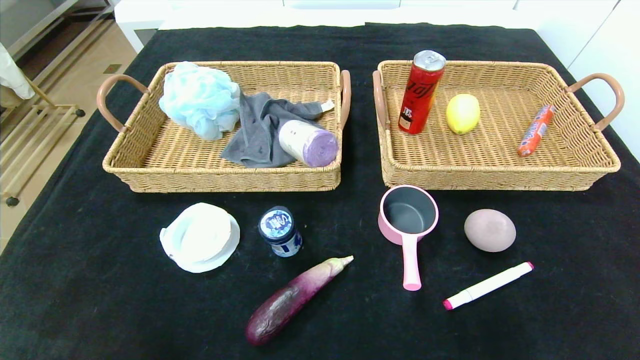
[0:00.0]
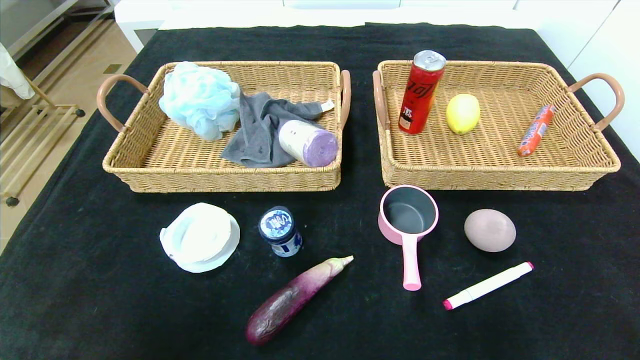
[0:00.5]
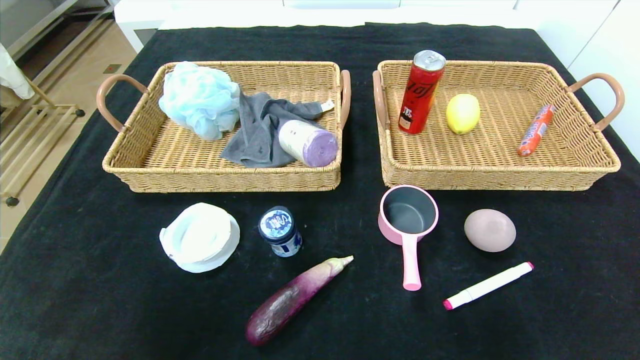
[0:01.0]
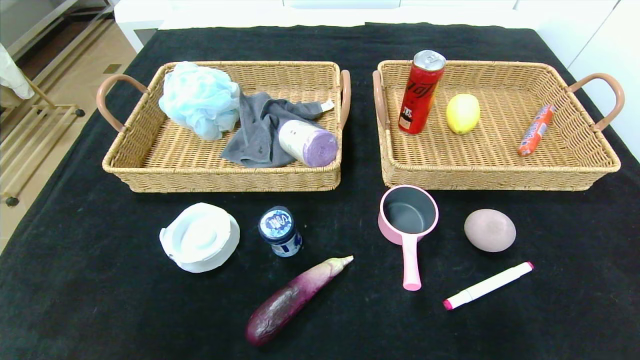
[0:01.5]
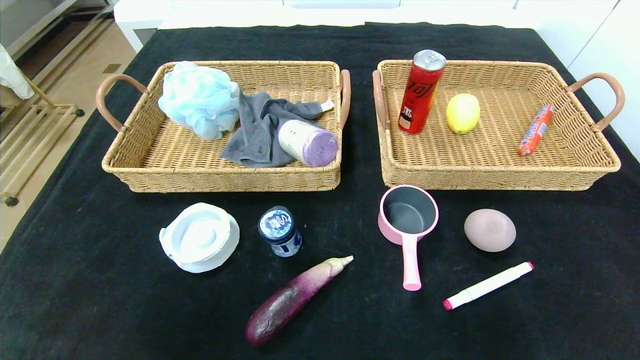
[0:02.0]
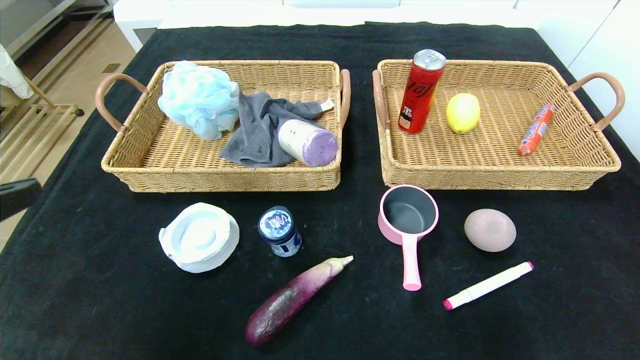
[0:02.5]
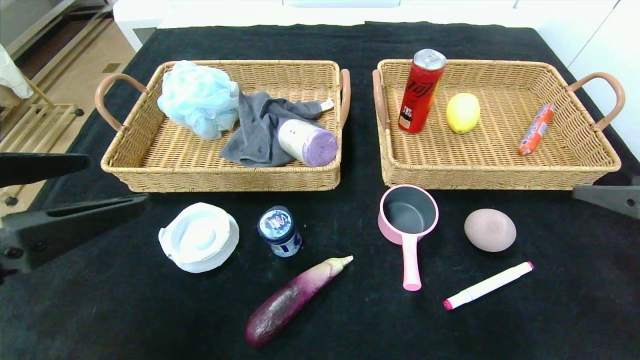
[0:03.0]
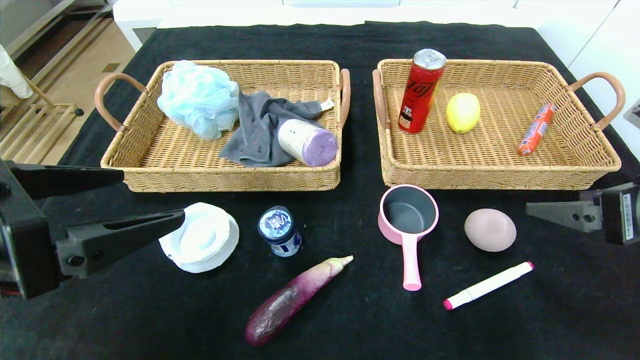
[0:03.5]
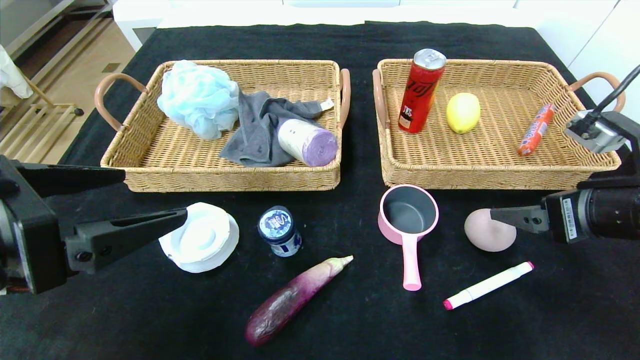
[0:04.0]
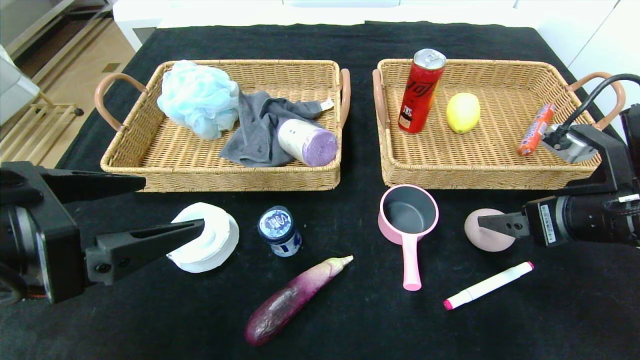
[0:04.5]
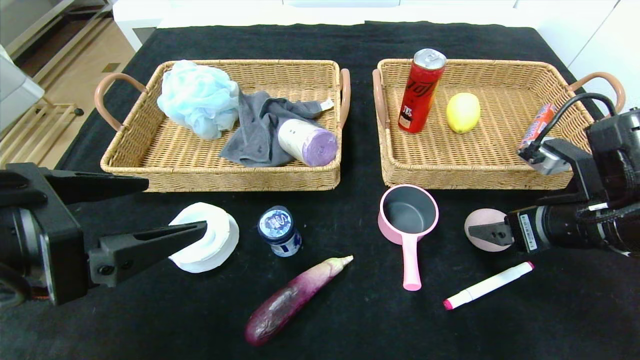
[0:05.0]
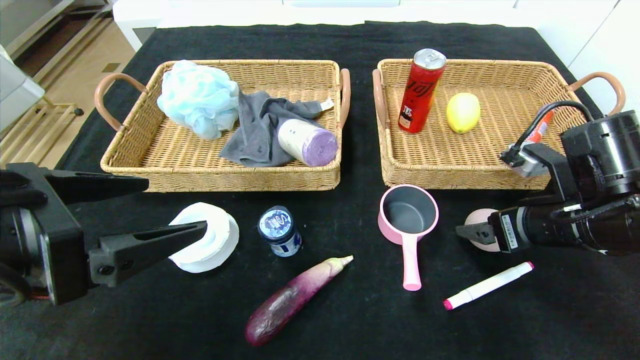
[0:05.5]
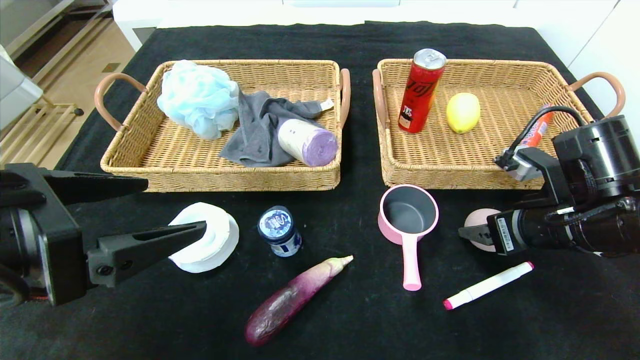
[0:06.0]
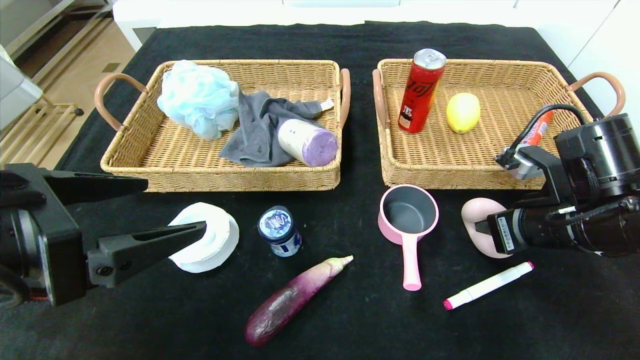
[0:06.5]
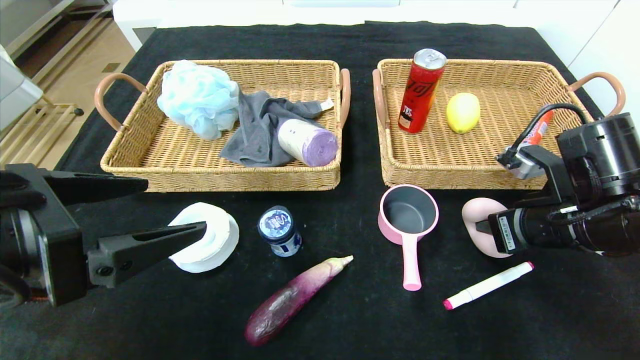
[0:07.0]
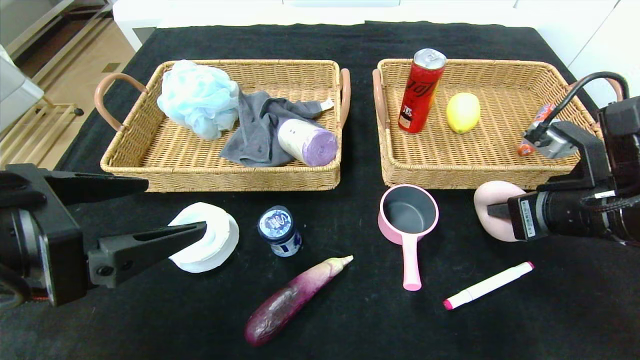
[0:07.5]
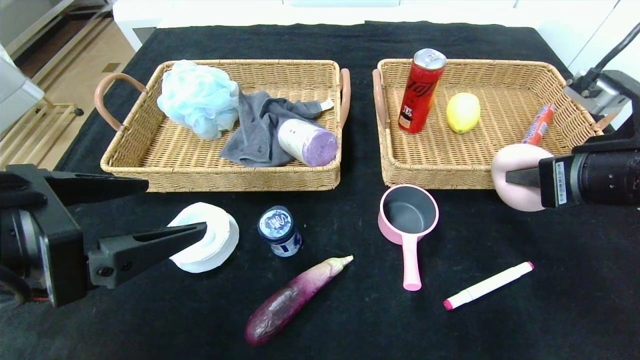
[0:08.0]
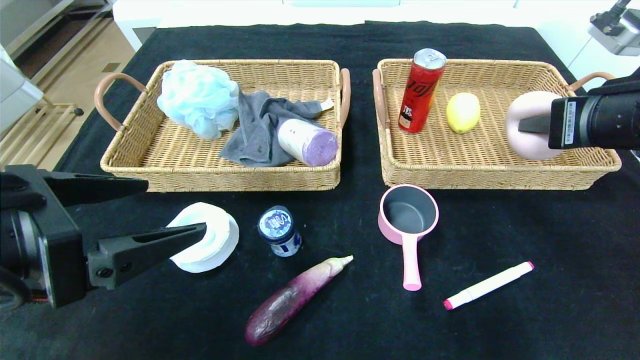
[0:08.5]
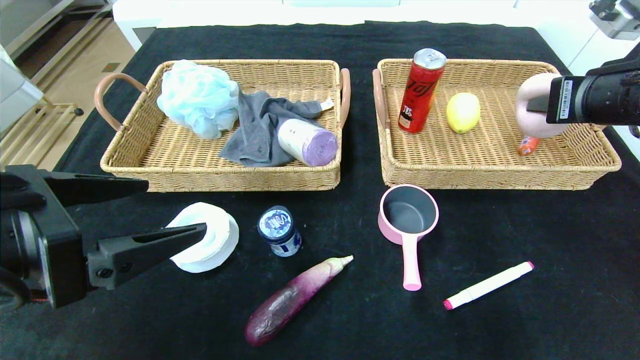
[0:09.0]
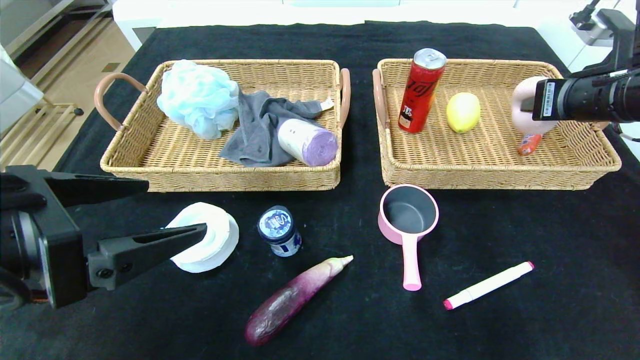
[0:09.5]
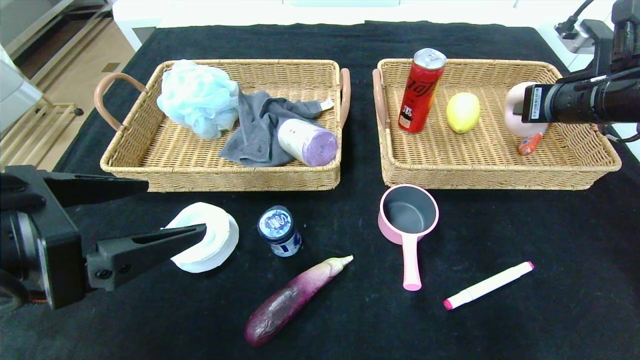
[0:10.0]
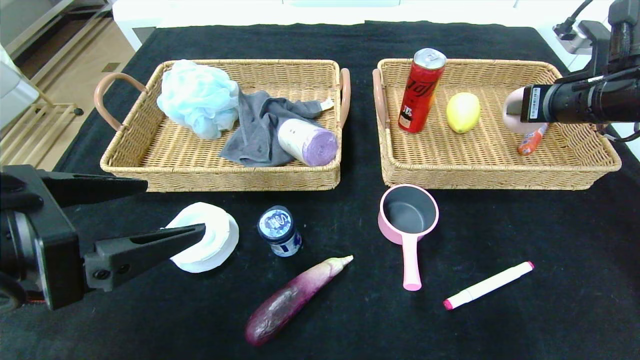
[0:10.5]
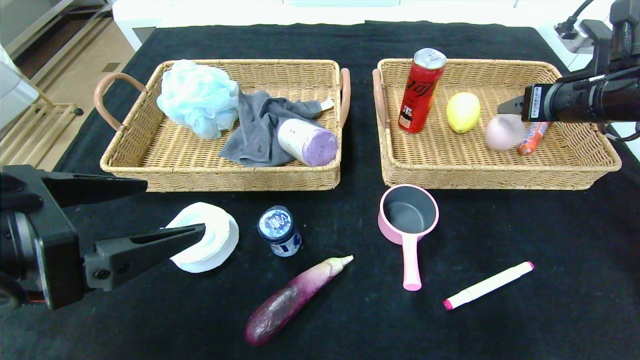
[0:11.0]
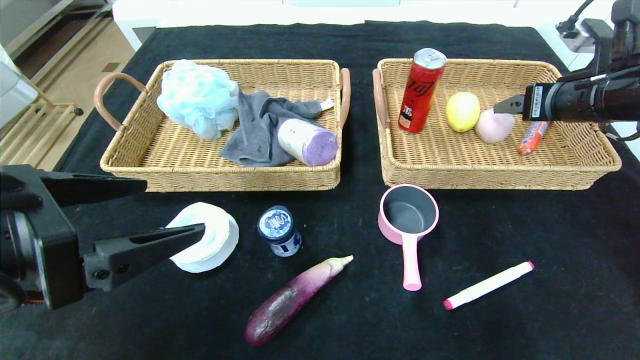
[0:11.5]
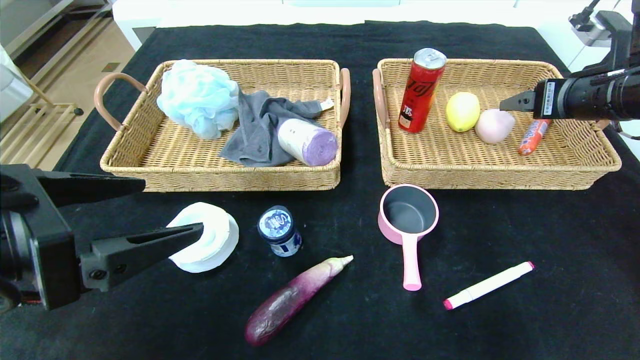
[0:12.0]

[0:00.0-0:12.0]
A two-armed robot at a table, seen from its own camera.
Step, 0:00.0 to 0:04.0: Grasp the peach and put it in the right basket.
0:00.0 to 0:02.0: The two grippers go roughly 25 cm upward.
0:02.0 to 0:04.0: The right gripper moves forward, about 20 cm, while the left gripper heads forward and to the right, covering approximately 15 cm.
0:04.0 to 0:06.0: The right gripper ends up approximately 5 cm from where it was.
0:06.0 to 0:08.0: The right gripper moves upward, roughly 10 cm, and closes up.
0:08.0 to 0:10.0: The right gripper goes approximately 10 cm forward.
0:10.0 to 0:12.0: The right gripper opens.

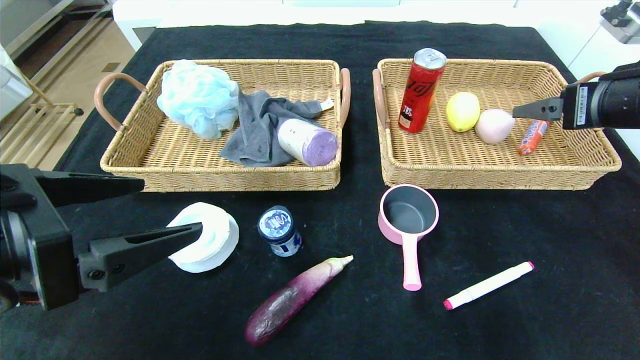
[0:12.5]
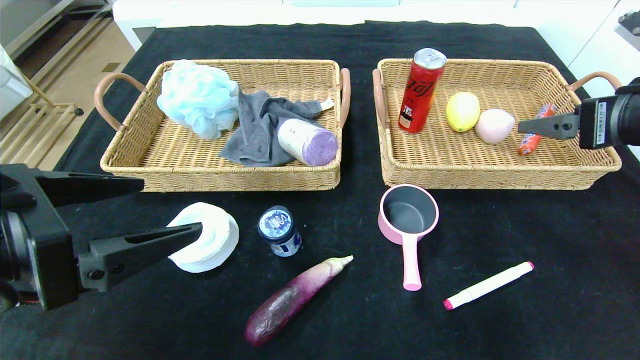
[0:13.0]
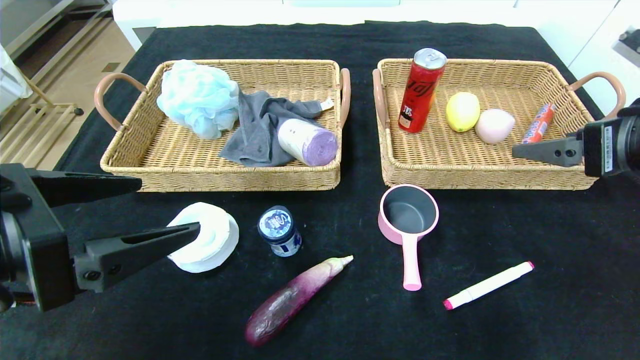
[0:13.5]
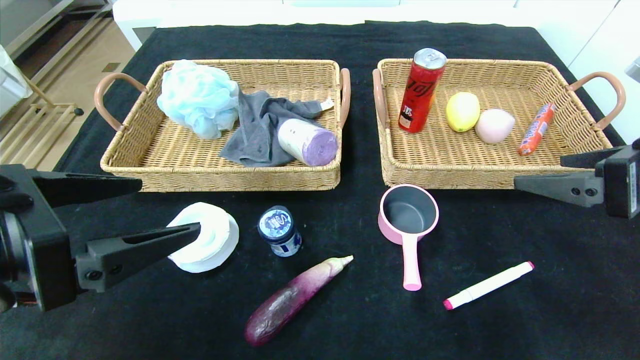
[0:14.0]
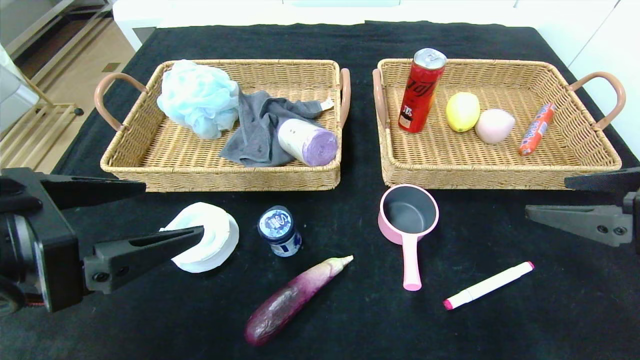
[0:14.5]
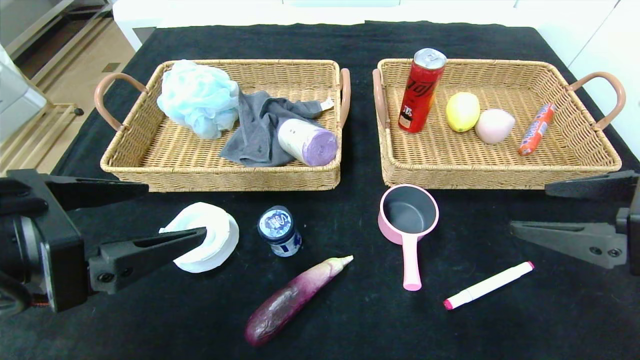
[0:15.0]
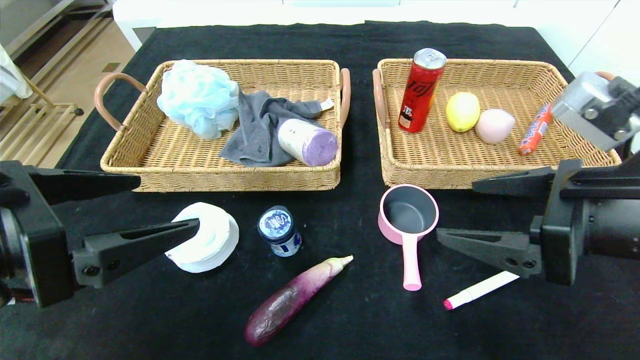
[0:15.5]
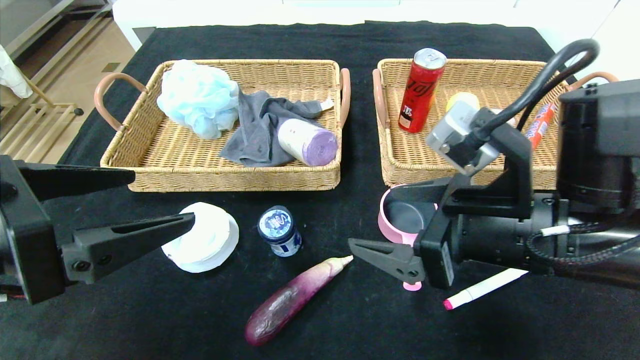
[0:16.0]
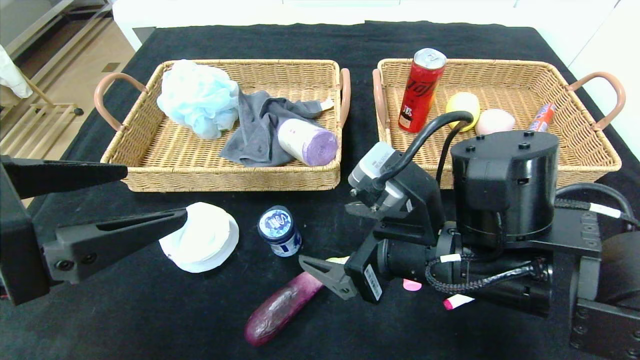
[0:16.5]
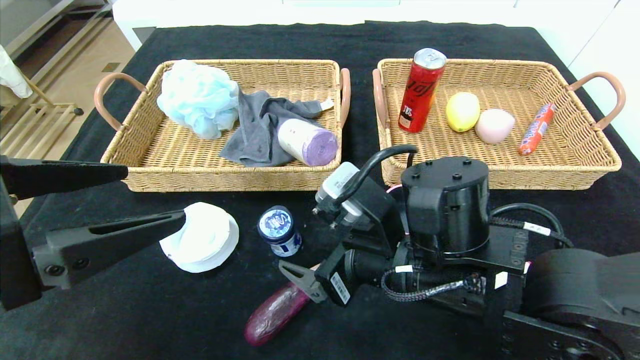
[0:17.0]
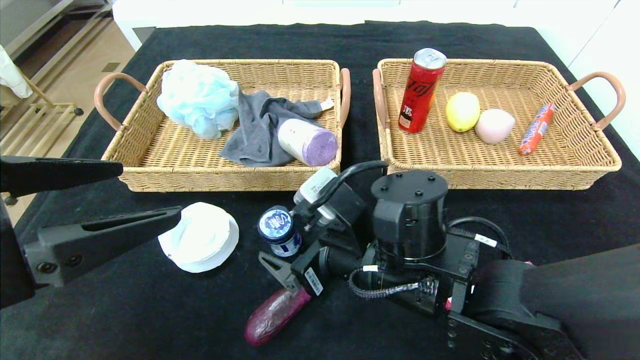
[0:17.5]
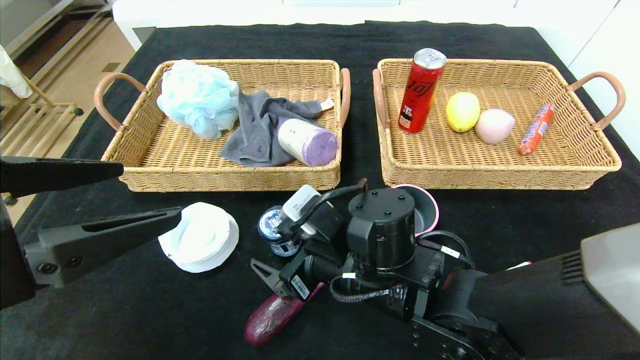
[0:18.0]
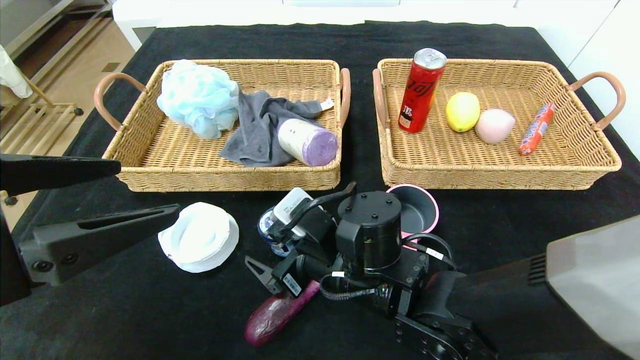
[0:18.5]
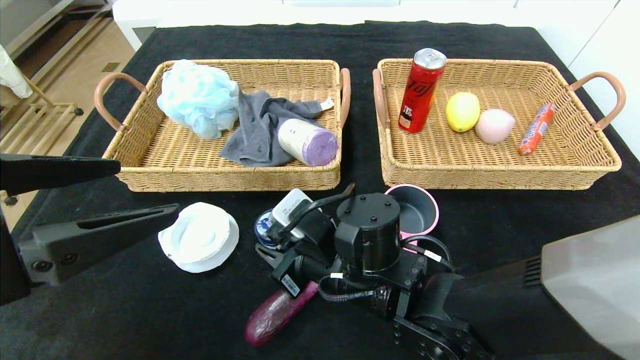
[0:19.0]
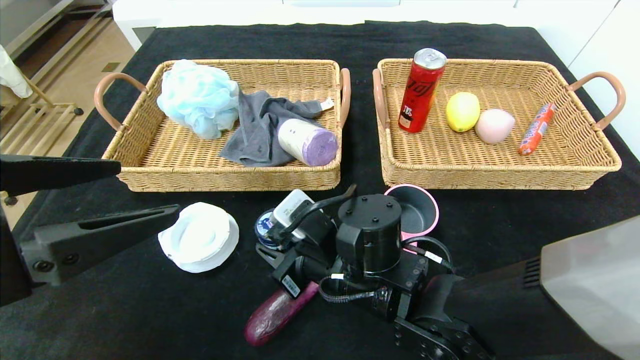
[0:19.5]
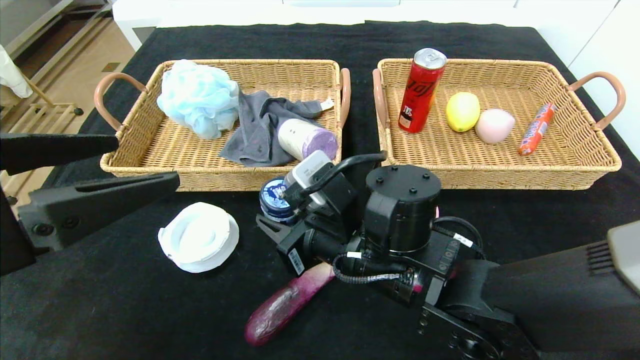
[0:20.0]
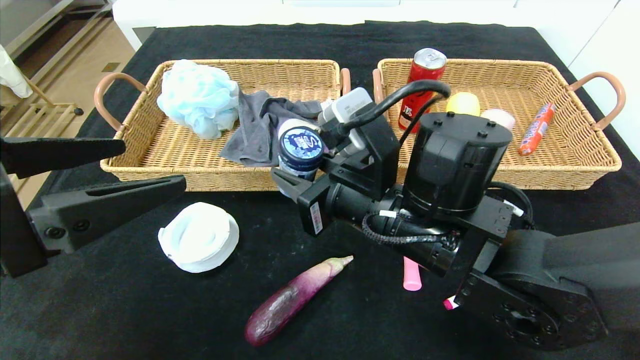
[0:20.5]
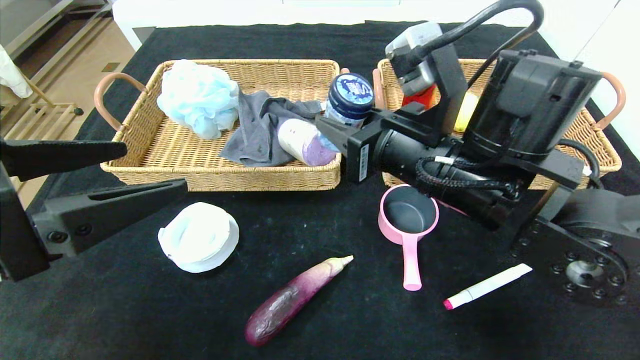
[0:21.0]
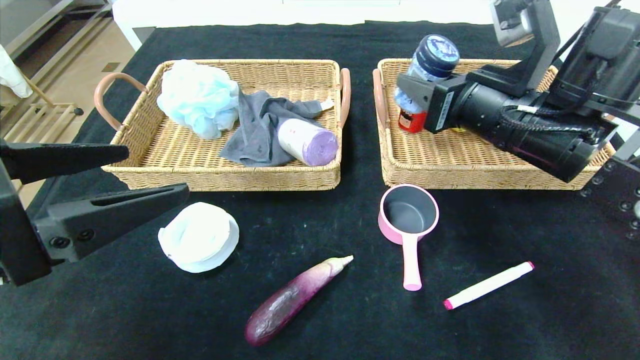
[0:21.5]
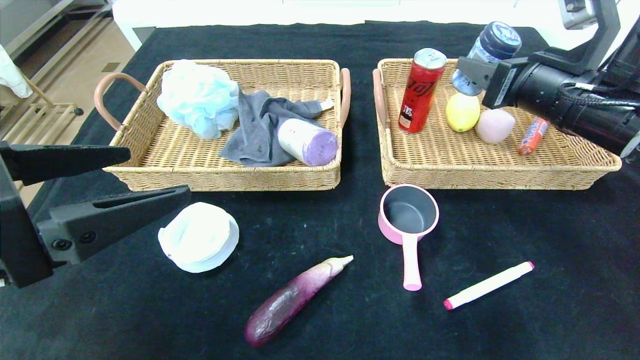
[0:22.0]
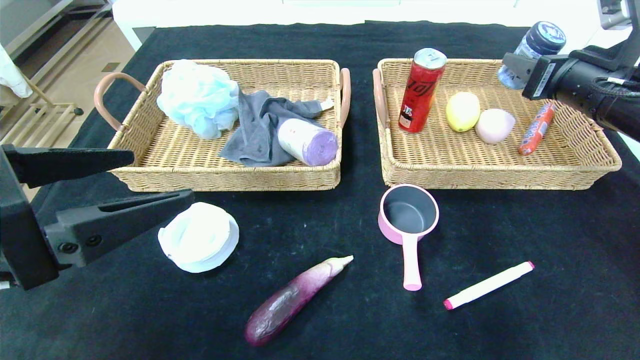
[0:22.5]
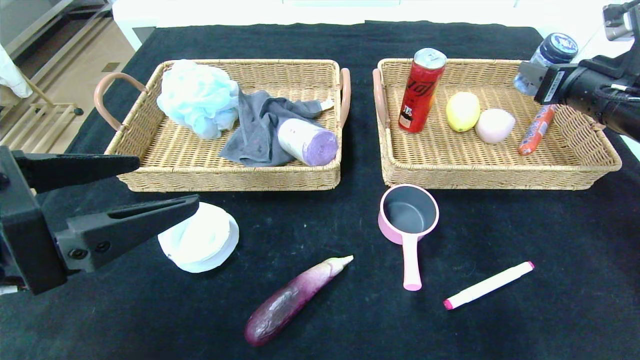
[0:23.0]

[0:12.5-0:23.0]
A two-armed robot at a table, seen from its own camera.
Step, 0:12.5 to 0:16.5: Grasp the mint candy and put it in the right basket.
0:12.5 to 0:14.5: The right gripper is displaced backward by approximately 10 cm.
0:14.5 to 0:16.5: The right gripper heads to the left, covering approximately 20 cm.
0:16.5 to 0:19.0: The right gripper travels to the left and downward by approximately 10 cm, and closes its fingers.
0:19.0 to 0:21.0: The right gripper travels upward and to the right by approximately 15 cm.
0:21.0 to 0:23.0: The right gripper shifts some 25 cm to the right.
